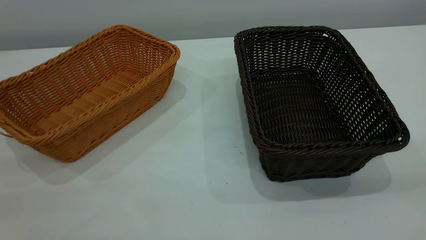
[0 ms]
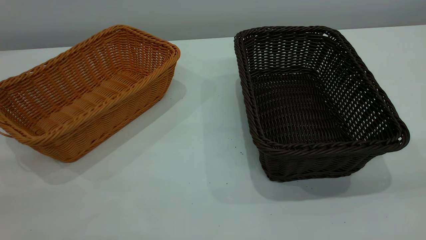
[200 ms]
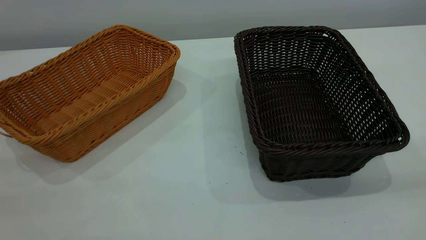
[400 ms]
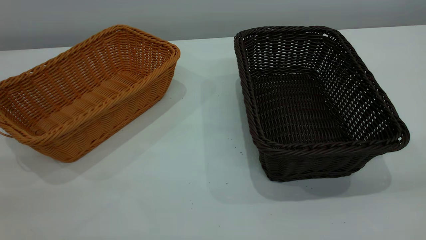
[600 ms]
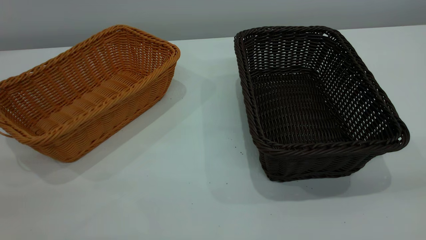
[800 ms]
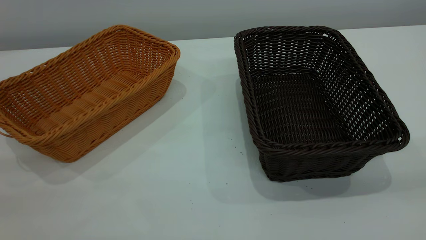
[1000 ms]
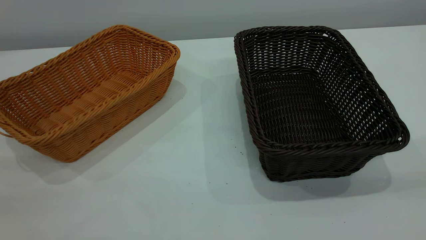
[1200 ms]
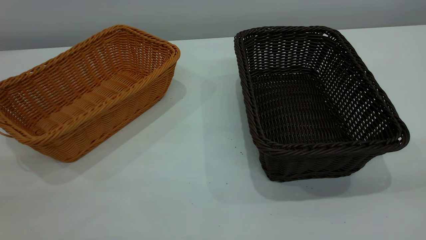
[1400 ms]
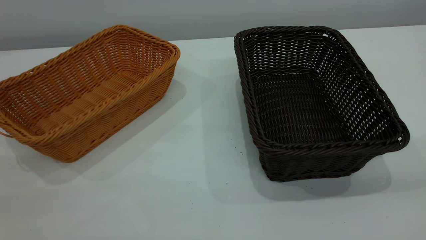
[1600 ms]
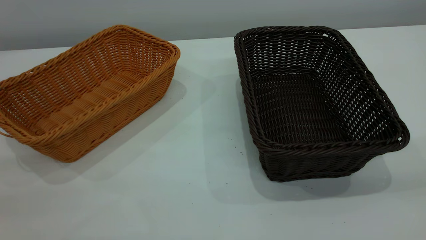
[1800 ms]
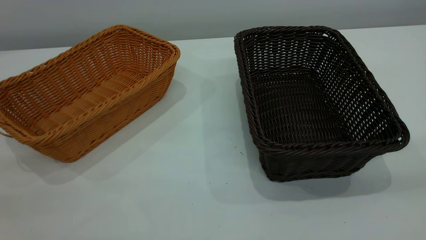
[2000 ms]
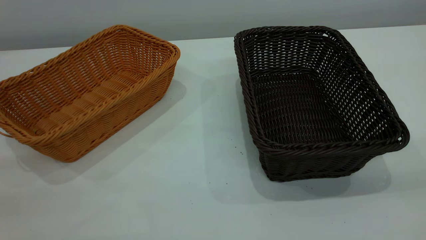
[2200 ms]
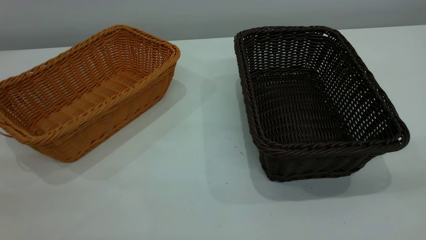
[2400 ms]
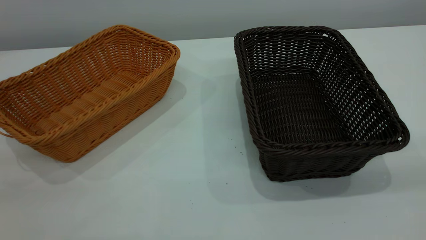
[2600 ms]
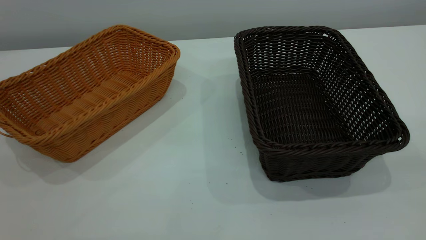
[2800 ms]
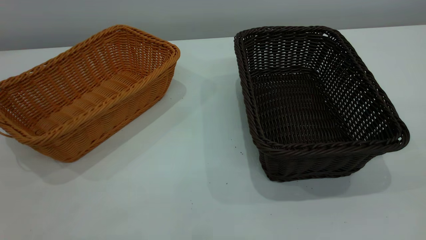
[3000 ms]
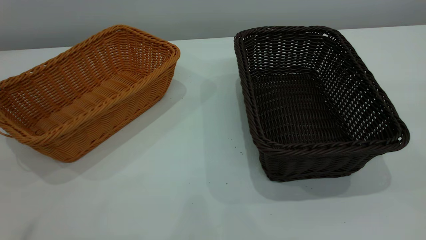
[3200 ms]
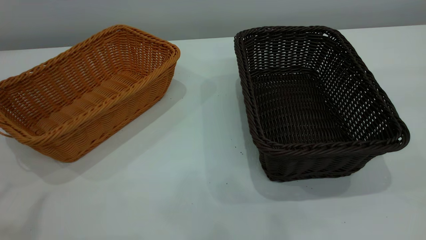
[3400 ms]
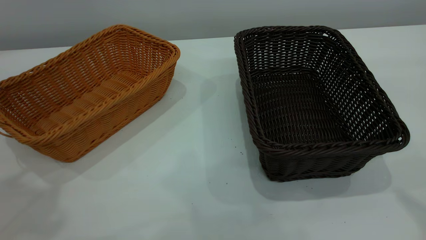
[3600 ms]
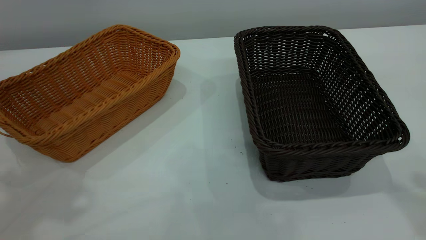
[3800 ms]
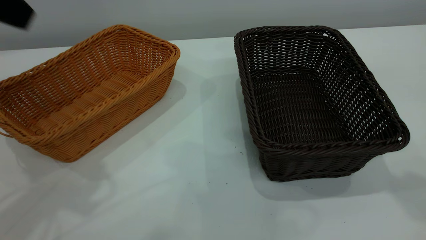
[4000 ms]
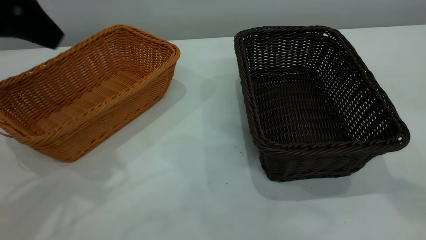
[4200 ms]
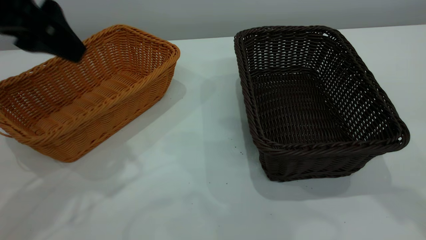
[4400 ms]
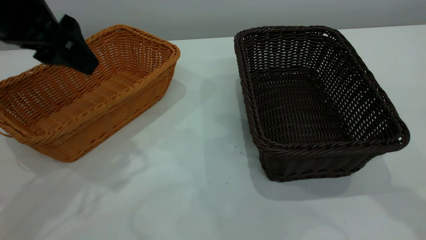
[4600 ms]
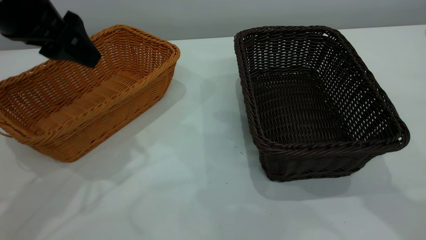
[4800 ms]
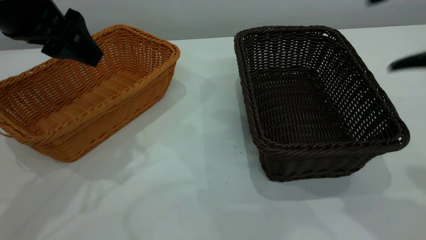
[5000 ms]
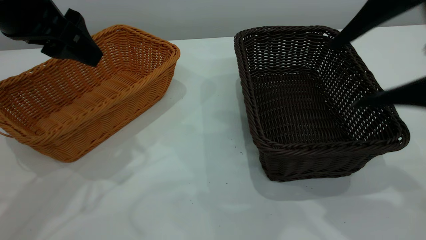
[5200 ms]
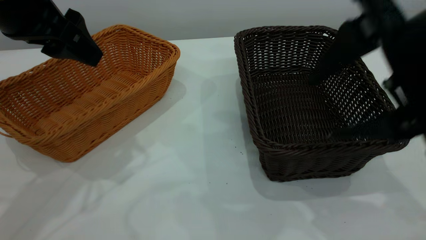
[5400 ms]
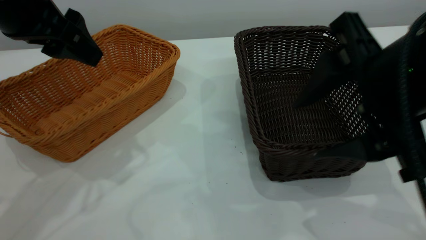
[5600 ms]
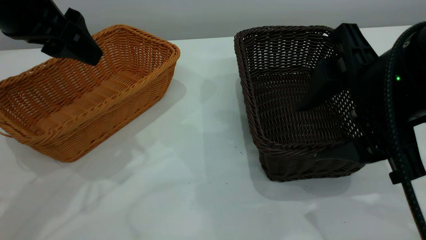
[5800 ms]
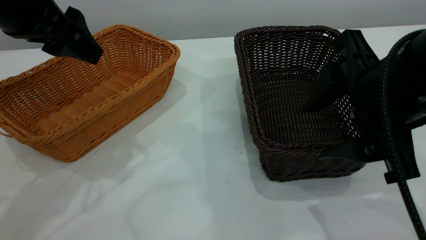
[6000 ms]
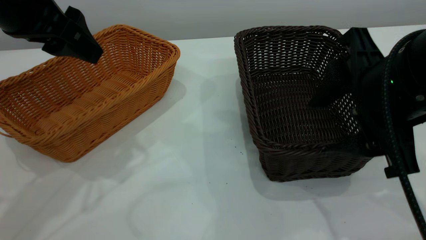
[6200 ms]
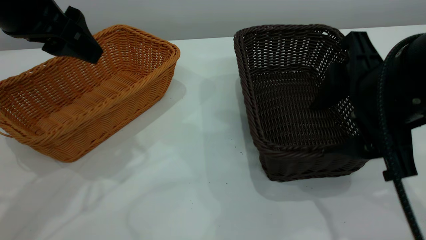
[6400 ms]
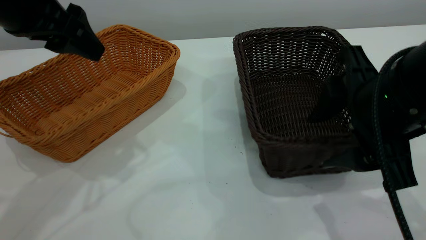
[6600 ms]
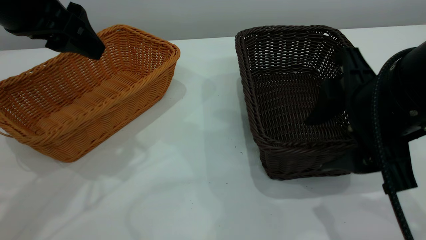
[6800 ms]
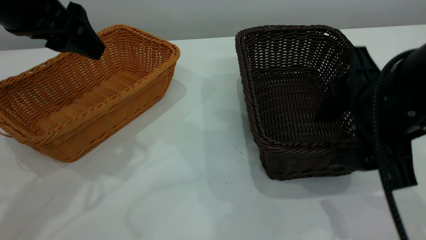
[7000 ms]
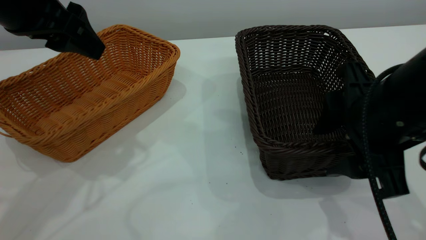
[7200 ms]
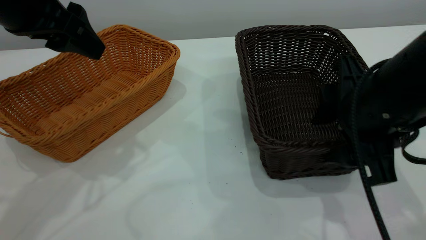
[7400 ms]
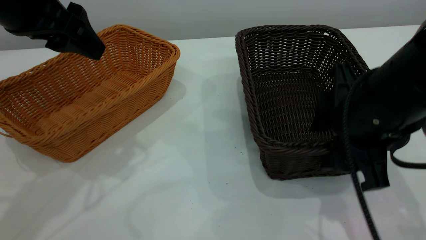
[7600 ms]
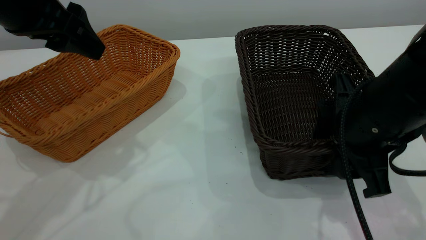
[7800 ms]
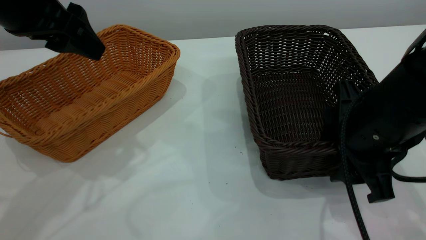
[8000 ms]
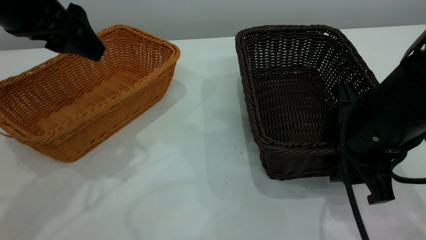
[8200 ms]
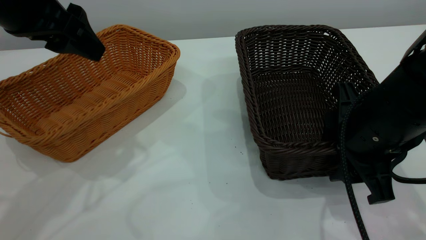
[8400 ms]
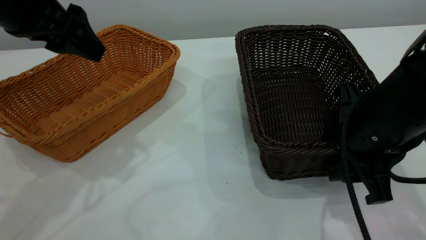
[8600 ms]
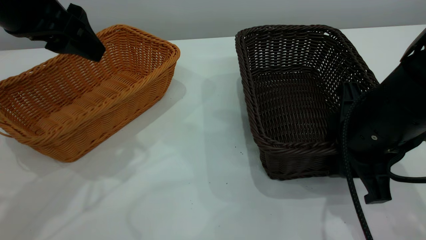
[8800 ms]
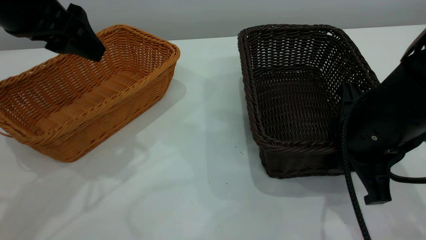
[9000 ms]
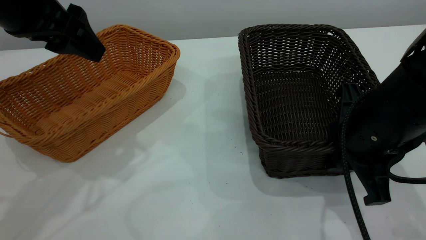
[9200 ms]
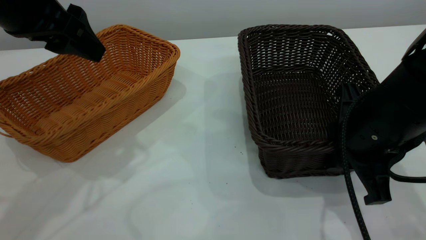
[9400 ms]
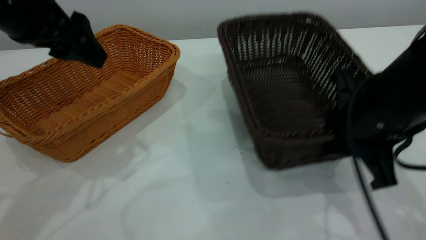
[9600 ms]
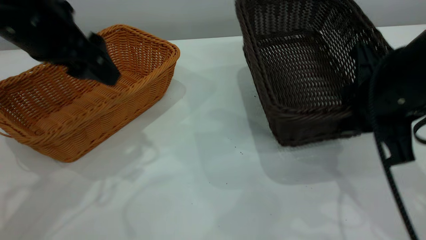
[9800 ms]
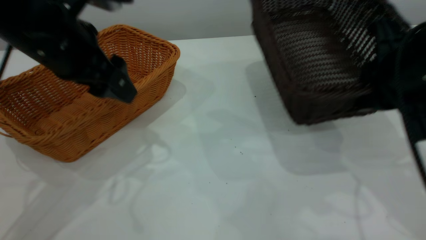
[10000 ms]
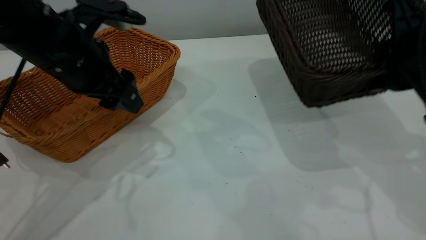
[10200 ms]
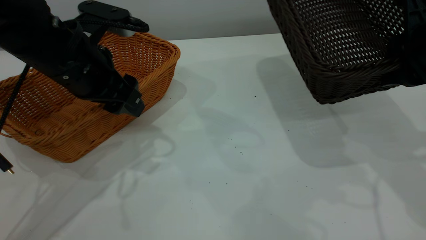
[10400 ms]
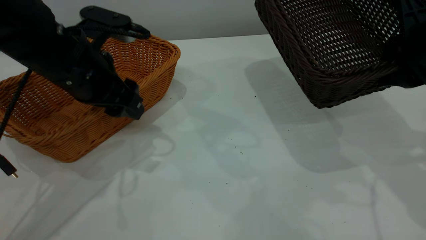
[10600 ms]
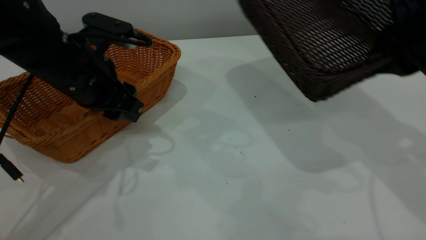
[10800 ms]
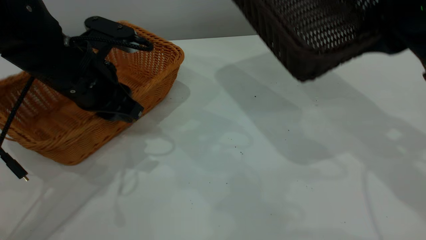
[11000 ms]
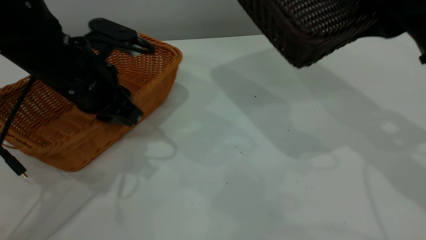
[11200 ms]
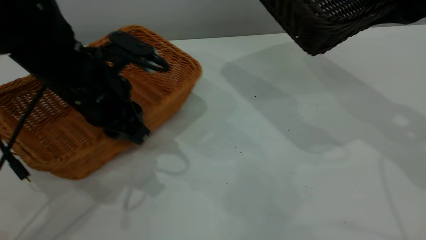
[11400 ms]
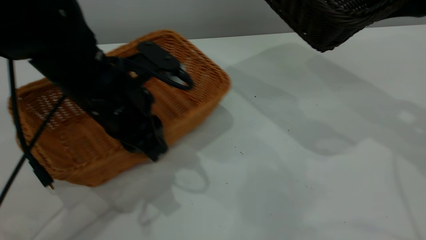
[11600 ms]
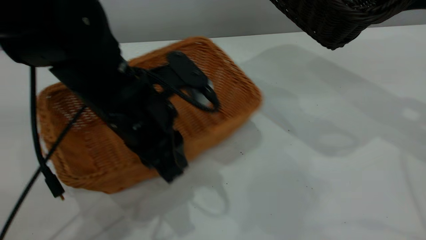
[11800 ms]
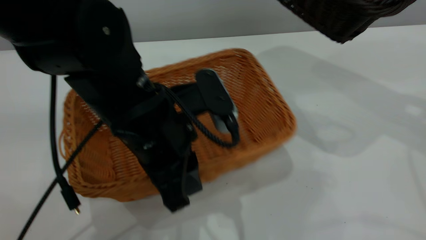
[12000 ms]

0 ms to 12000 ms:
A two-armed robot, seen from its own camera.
Task of the whole recording: the left gripper grasp the brown basket and place it in the center of the table, the right gripper grasp the black basket and place it inside the brown one.
Step, 0 ms to 9800 ms: Pick up the light basket with the right gripper.
0 ms to 1600 ms: Neither gripper changes place.
3000 ms to 4400 ms: The left gripper heads forward and downward, covering about 25 cm.
4400 ms to 6000 ms: The right gripper heads downward and to the left, covering some 20 cm.
6000 ms to 7600 ms: The right gripper travels downward by some 5 cm.
7600 ms to 9000 ms: The right gripper closes.
9000 ms to 10400 ms: The left gripper goes about 10 cm downward. Meanwhile the right gripper moves upward and to the right, approximately 10 cm.
10400 ms to 12000 ms: The left gripper shifts approximately 15 cm to the right and backward, and closes up; the right gripper travels upward and forward by about 10 cm.

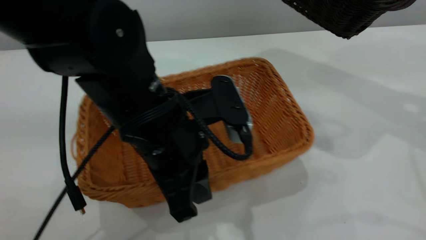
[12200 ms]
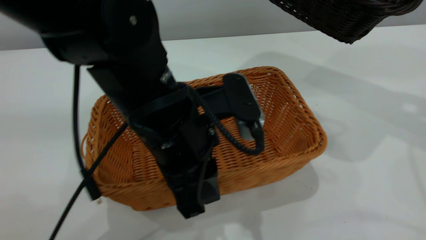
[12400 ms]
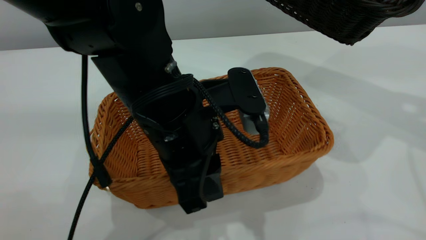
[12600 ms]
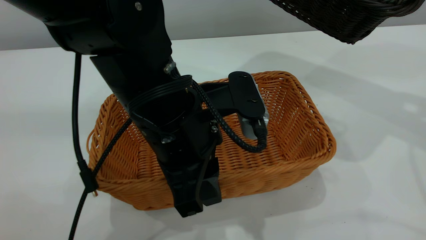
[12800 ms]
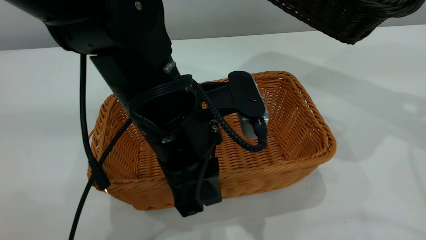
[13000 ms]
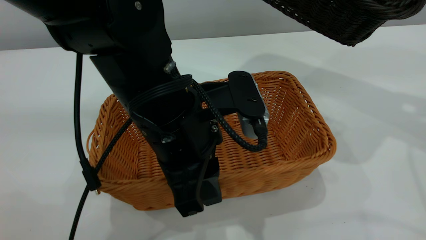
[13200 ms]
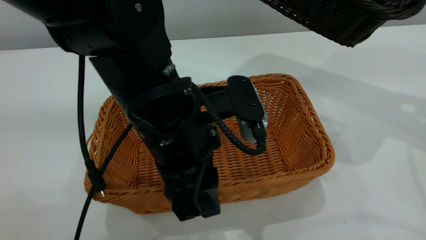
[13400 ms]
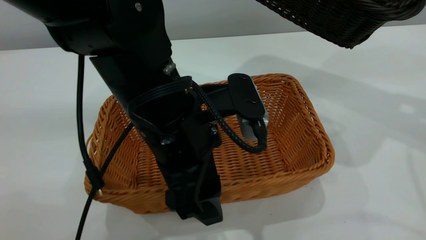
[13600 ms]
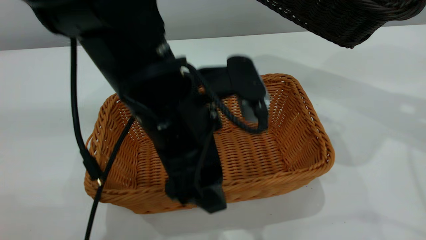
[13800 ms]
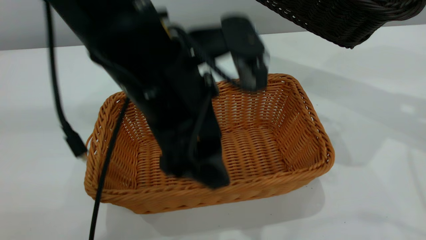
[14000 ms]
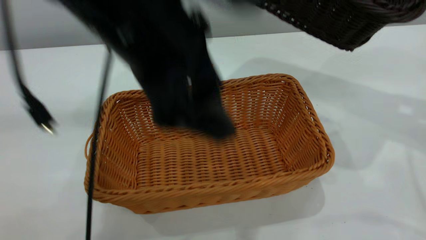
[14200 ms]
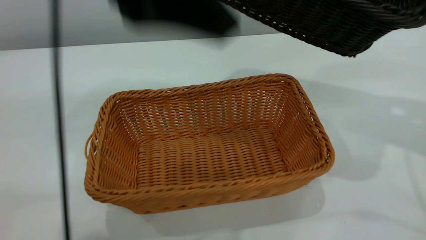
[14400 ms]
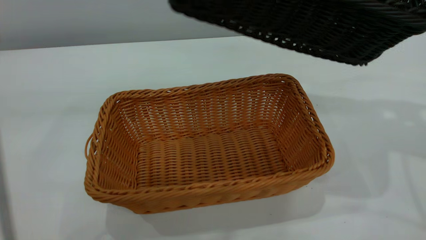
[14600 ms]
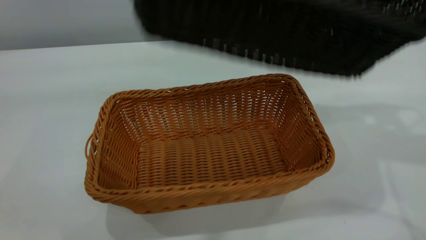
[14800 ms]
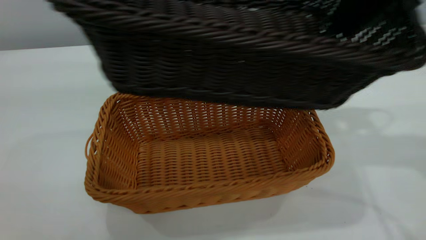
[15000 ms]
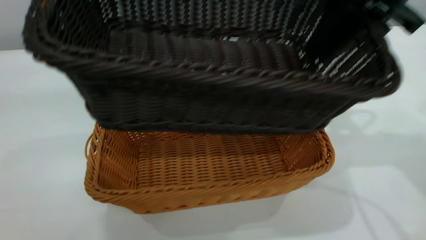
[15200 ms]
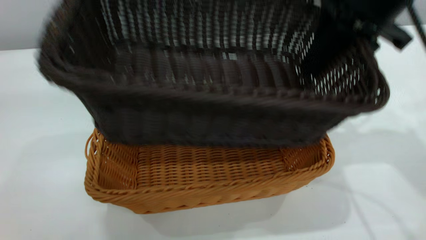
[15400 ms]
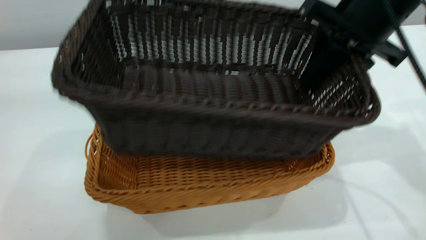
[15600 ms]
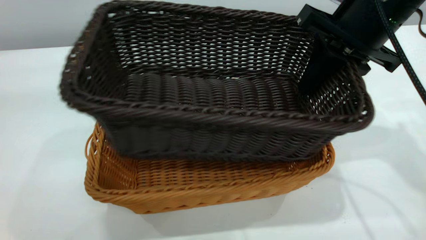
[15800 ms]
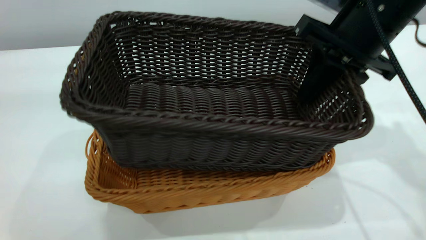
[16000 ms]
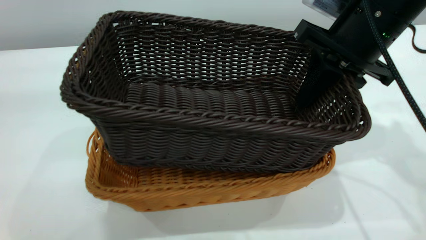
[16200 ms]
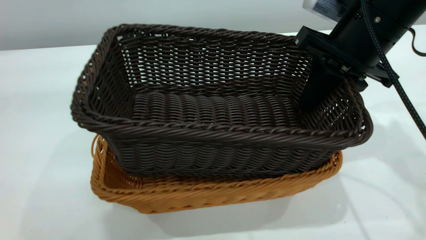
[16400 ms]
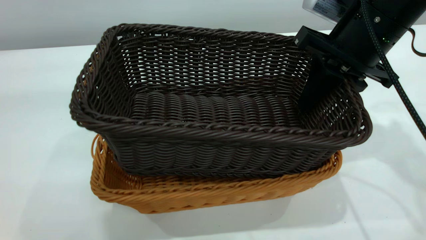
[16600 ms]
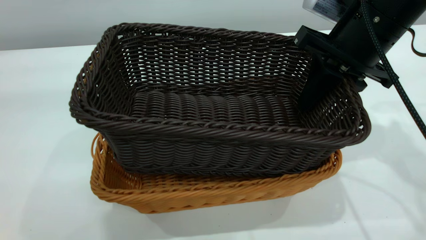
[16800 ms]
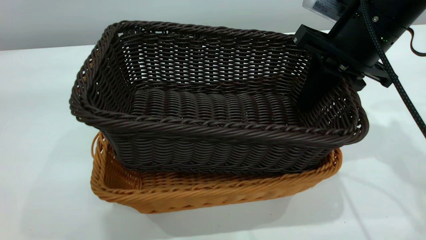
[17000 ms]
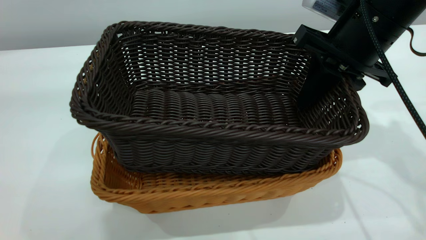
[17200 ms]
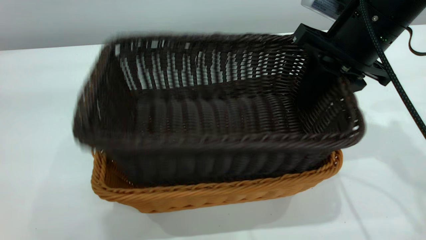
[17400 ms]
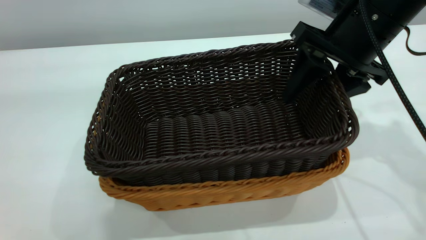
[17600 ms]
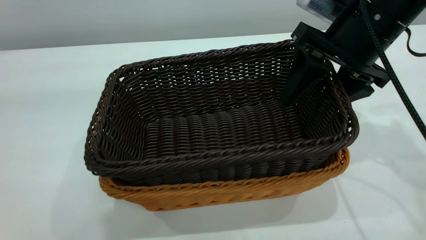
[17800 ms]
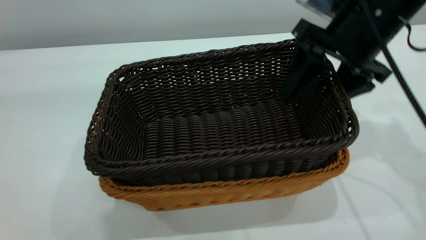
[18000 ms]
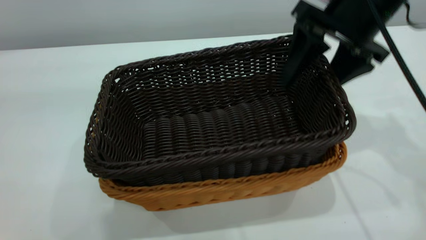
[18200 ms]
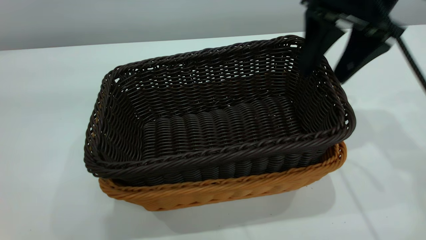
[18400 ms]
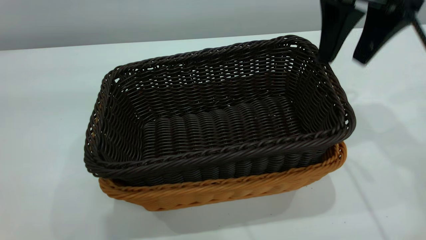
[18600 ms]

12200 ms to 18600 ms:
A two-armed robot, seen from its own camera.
Task of the whole recording: the left gripper grasp the brown basket and place it in the center of the table, the right gripper grasp the black basket and place it inside the brown one.
Step, 14200 ms to 18400 ms: Place the dark basket on top of the light basket.
12200 ms to 13800 ms: The left gripper opens its fingers.
13800 ms to 15400 ms: The right gripper goes some 10 cm to the left and downward; the left gripper moves upward, approximately 30 cm.
17000 ms to 18600 ms: The right gripper heads upward, covering roughly 10 cm, and opens.
